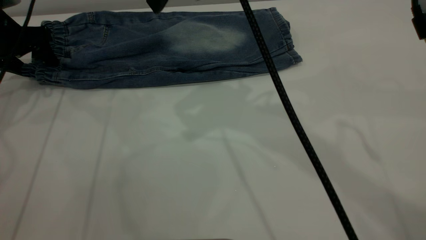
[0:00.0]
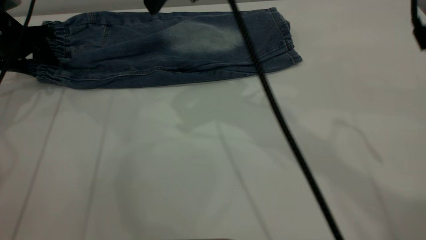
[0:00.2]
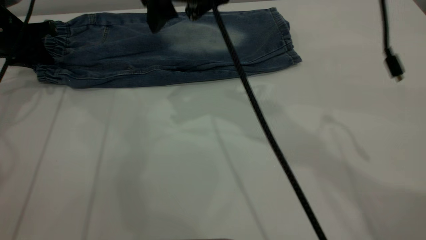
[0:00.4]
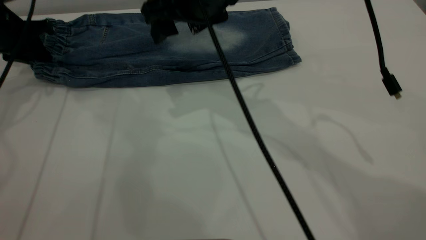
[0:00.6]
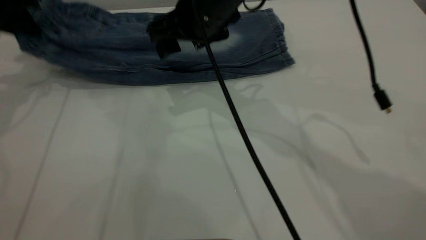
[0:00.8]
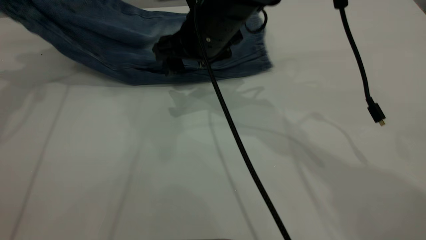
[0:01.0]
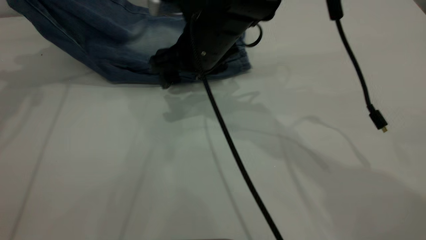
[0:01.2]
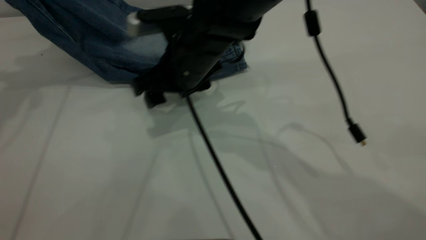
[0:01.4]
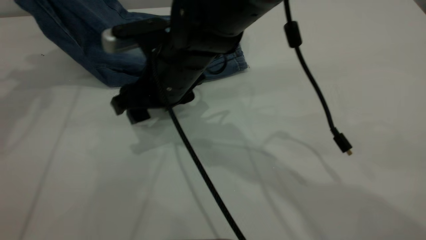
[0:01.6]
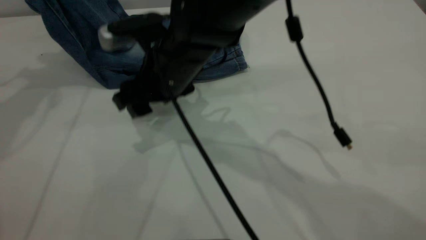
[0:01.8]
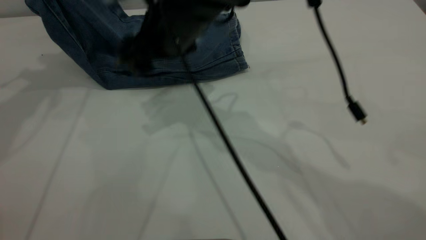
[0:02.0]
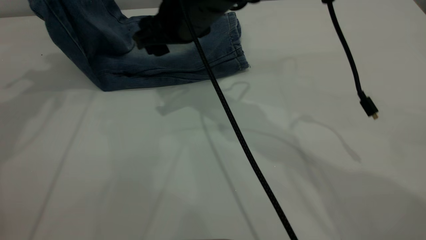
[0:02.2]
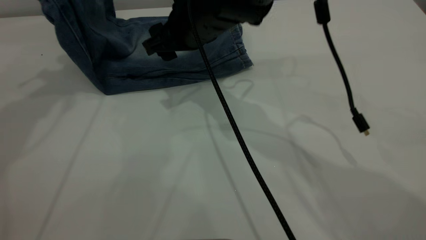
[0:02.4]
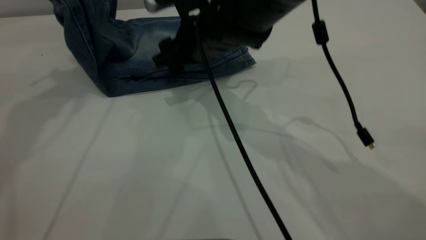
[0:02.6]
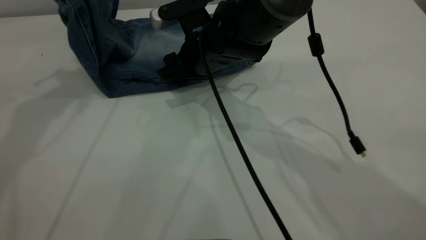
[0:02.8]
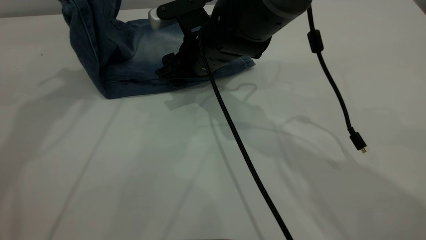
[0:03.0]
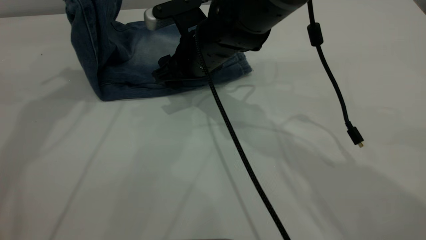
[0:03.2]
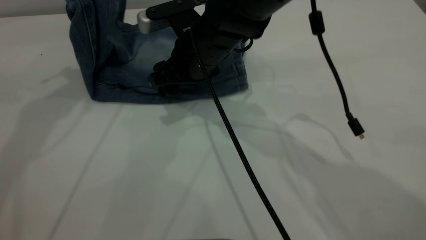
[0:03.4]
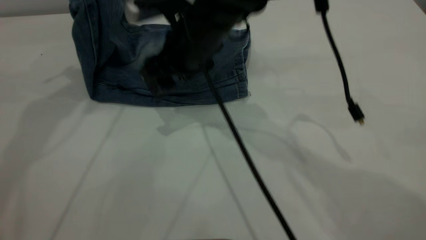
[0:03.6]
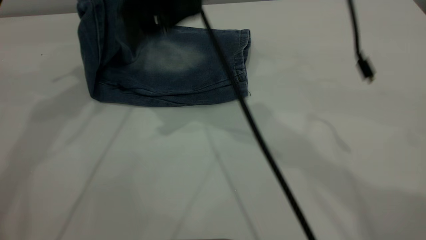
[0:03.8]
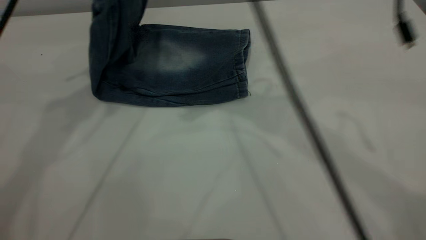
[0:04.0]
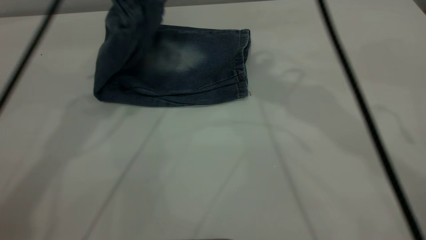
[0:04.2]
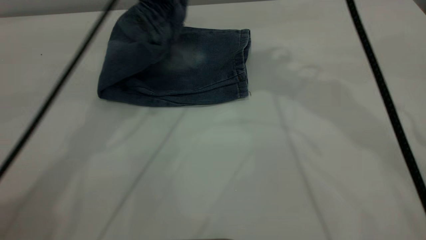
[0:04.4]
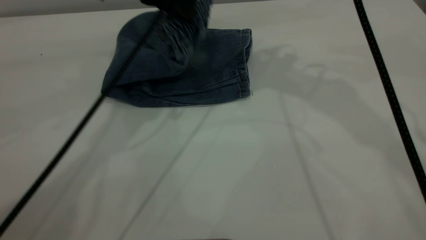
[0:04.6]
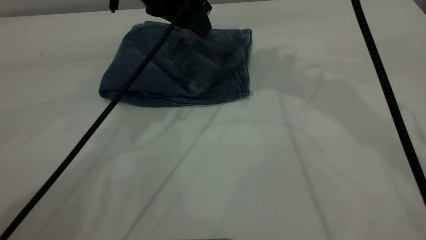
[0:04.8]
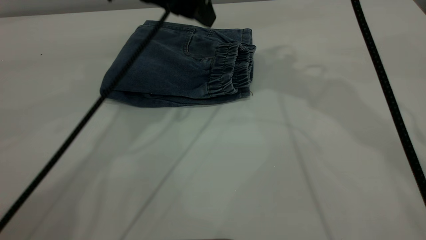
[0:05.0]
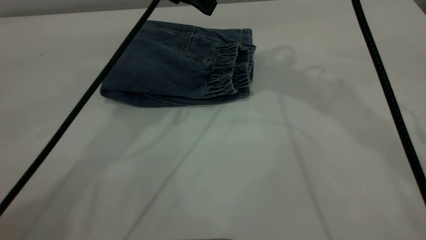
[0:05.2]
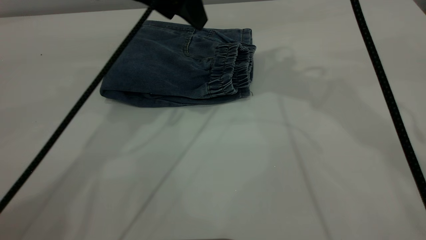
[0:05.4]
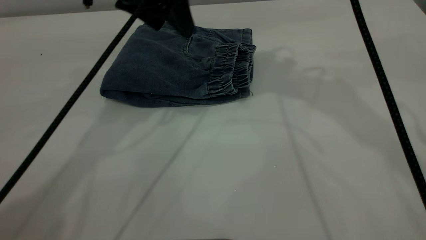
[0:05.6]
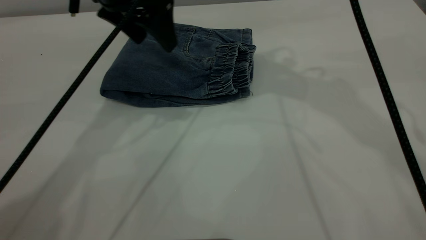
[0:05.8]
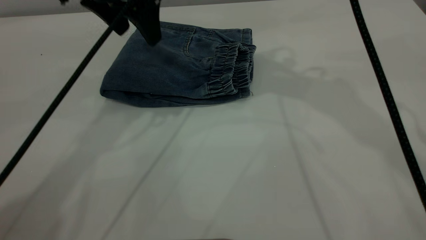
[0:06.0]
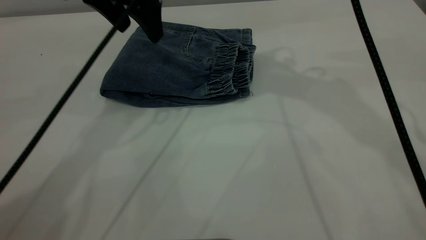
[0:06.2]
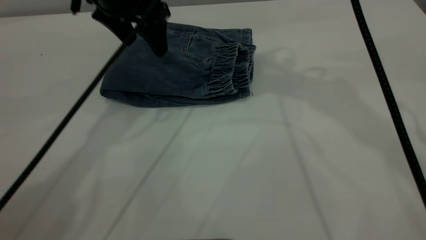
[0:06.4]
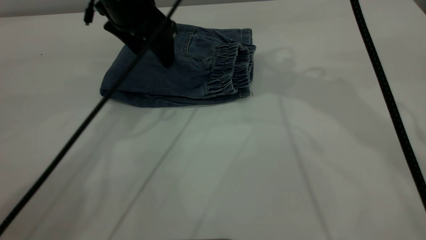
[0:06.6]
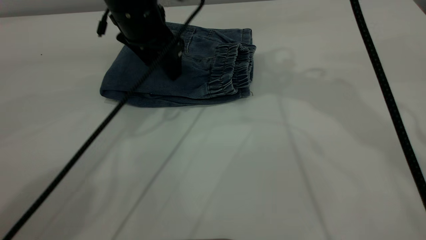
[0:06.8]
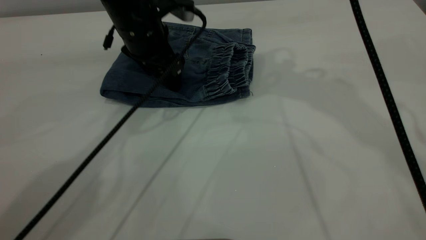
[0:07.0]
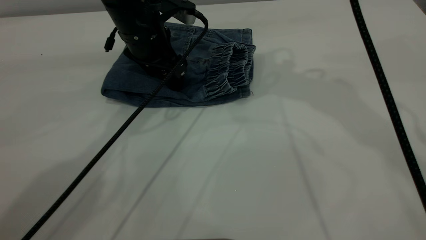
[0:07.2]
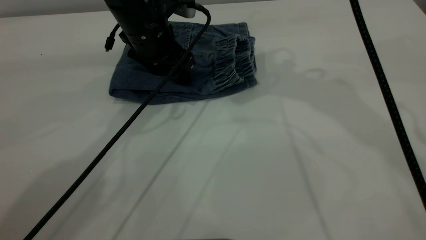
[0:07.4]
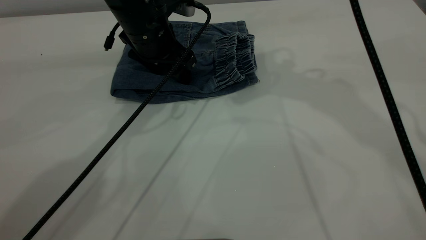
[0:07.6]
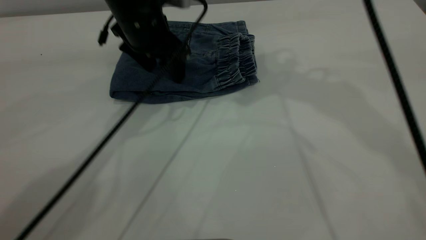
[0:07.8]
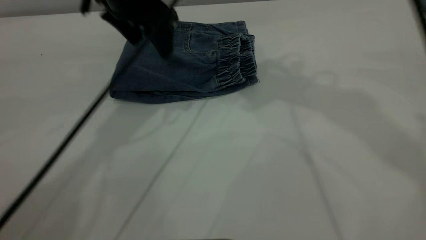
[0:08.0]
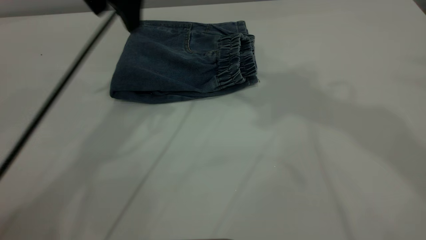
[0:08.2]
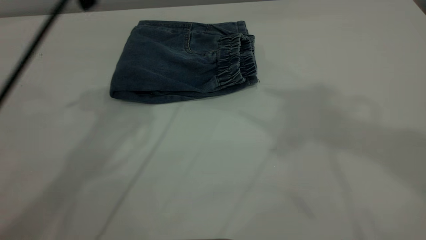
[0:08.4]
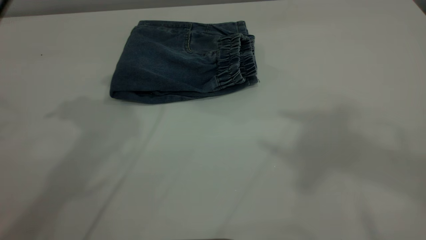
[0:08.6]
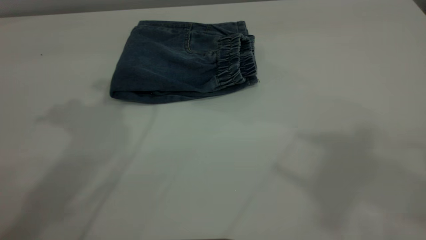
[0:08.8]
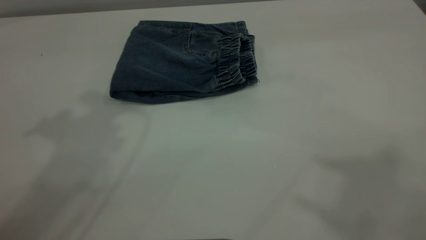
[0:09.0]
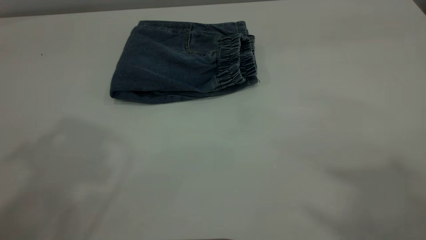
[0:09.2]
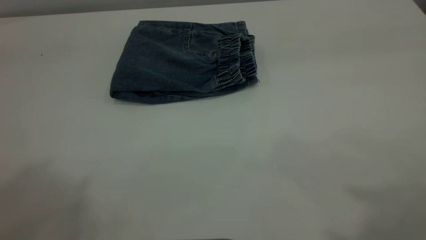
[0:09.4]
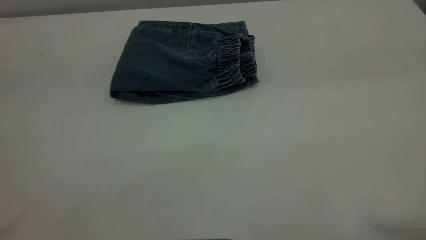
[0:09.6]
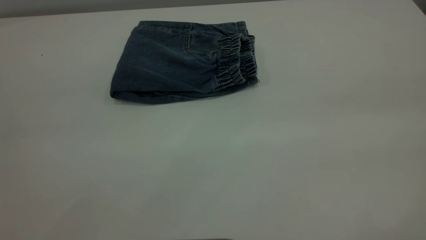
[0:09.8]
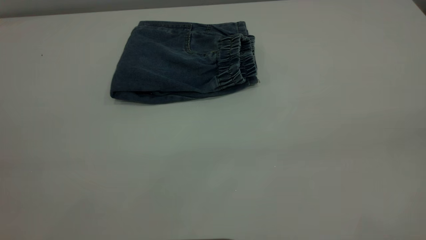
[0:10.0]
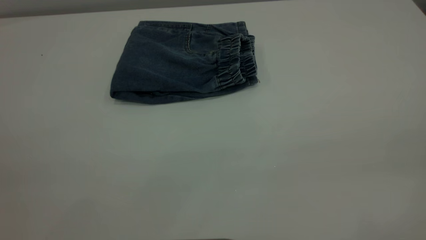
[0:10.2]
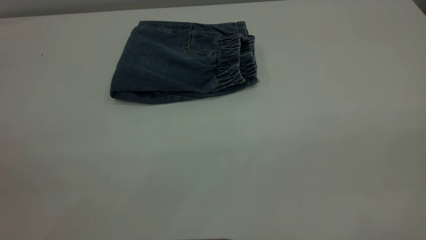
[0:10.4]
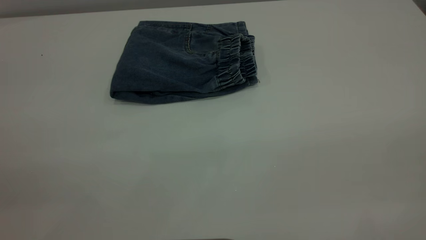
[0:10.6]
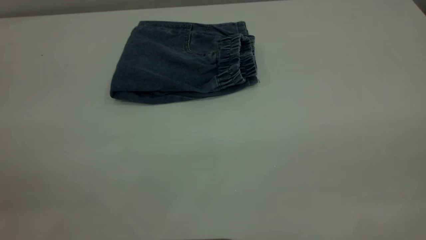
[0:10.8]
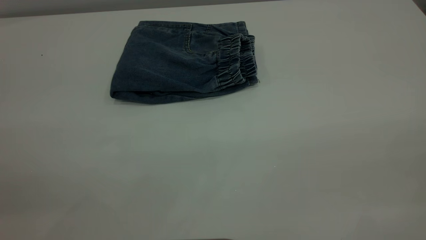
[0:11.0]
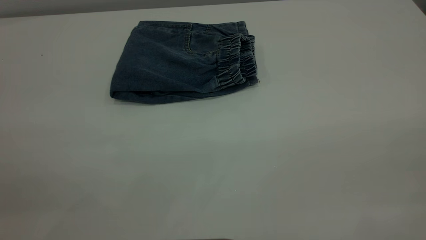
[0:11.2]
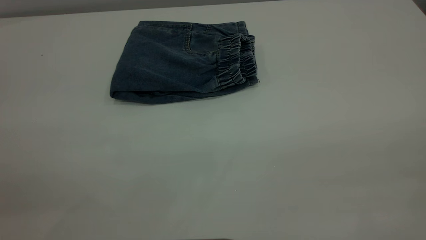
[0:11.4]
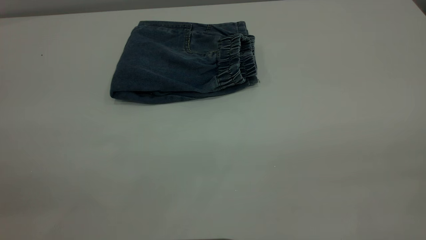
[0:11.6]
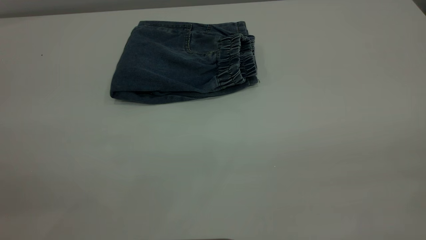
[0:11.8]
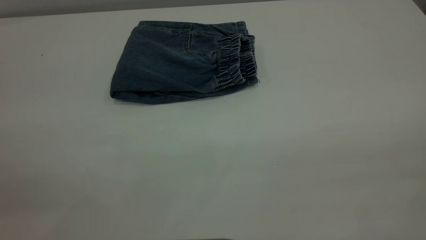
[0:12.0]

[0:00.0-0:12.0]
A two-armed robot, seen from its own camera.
Step, 0:00.0 to 0:05.2: Fold the pants from left to right.
0:00.0 to 0:01.6: The left gripper travels upward by roughly 20 cm, and closes, while the right gripper goes some 20 cm downward and to the left.
0:01.6 to 0:03.0: The right gripper heads forward, covering approximately 5 cm, and moves approximately 5 cm upward and comes back; the left gripper goes approximately 5 cm to the right.
0:03.0 to 0:04.4: The right gripper moves upward and to the right, some 25 cm. Meanwhile the left gripper is displaced to the right and downward by some 15 cm.
0:04.4 to 0:06.0: The left gripper opens.
0:06.0 to 0:07.6: The left gripper travels downward by roughly 10 cm.
0:07.6 to 0:09.0: Both grippers travel together upward and backward, roughly 35 cm.

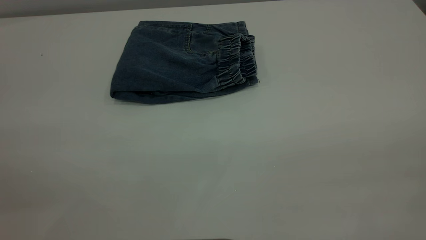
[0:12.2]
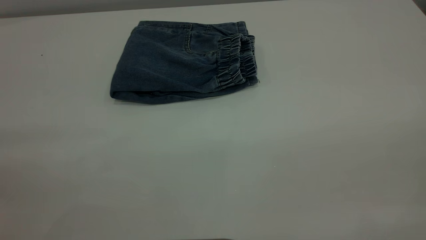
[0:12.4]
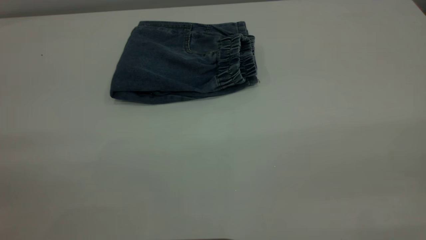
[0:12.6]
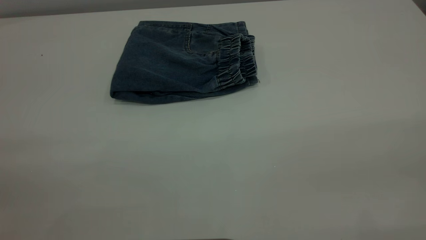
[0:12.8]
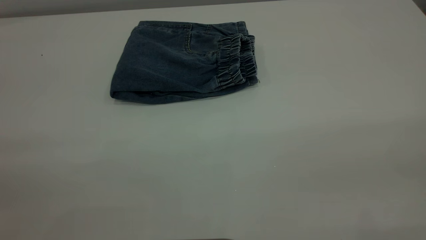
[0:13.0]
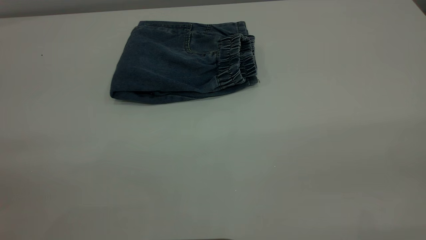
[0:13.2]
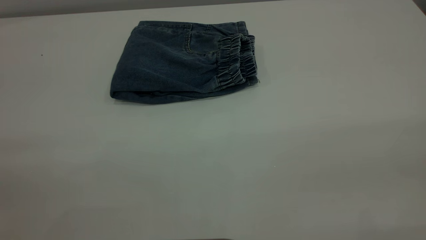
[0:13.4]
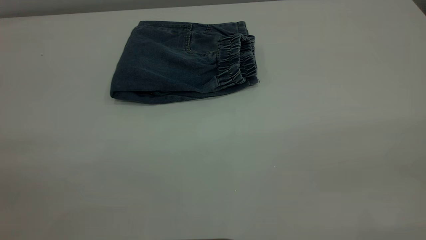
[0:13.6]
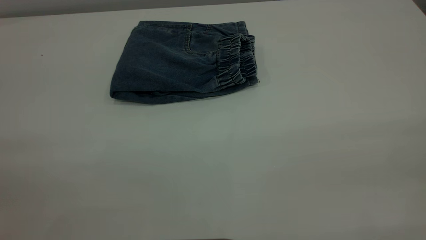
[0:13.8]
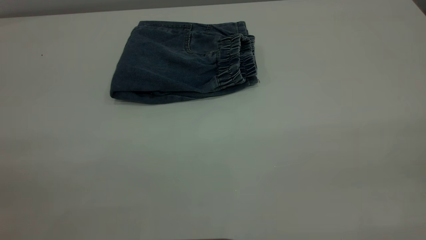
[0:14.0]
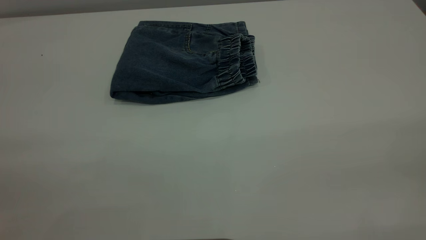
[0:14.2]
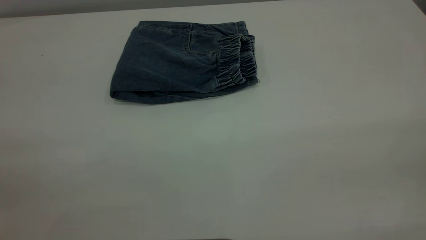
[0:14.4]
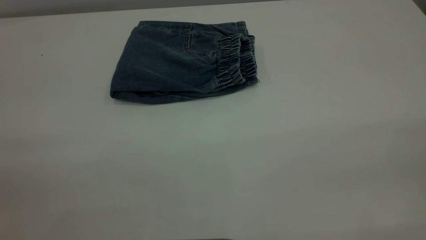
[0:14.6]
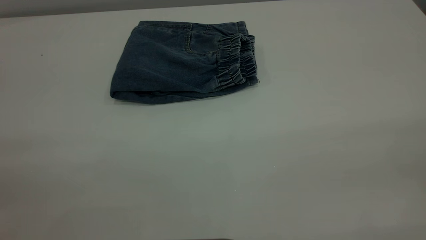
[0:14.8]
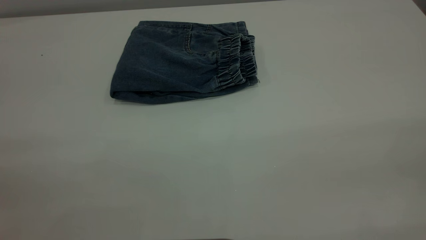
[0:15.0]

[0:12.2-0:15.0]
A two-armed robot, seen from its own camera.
0:13.6 to 0:15.0: Neither gripper changes place.

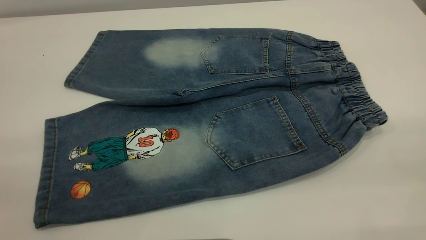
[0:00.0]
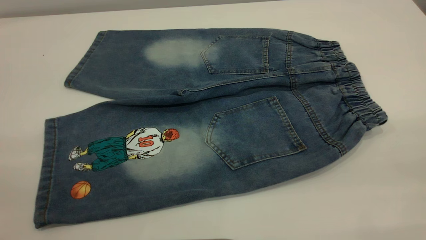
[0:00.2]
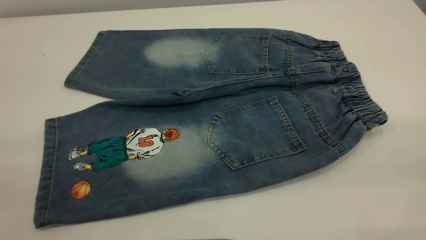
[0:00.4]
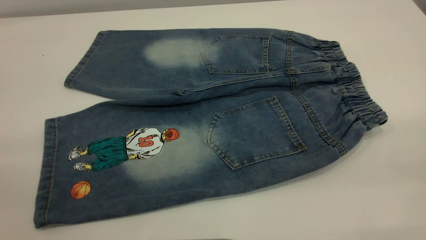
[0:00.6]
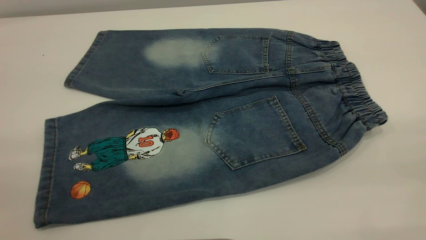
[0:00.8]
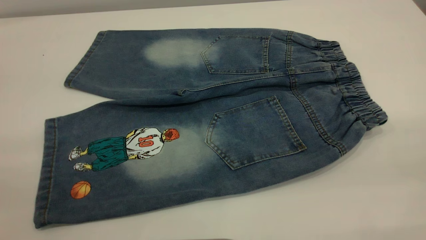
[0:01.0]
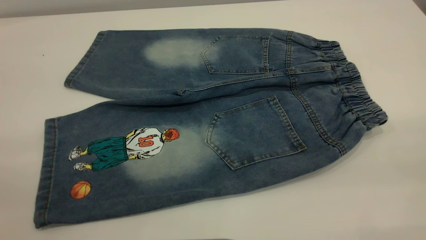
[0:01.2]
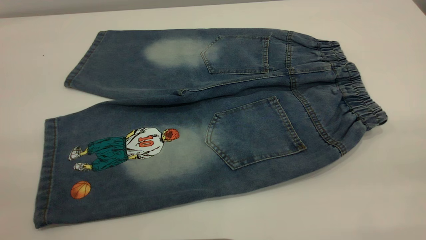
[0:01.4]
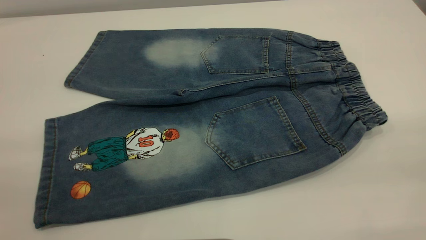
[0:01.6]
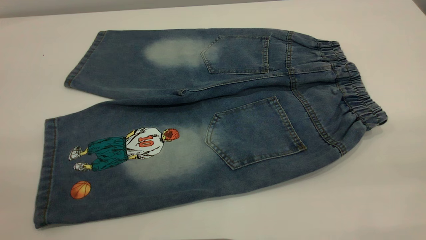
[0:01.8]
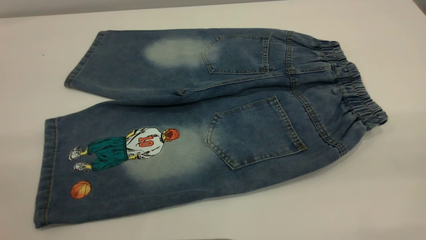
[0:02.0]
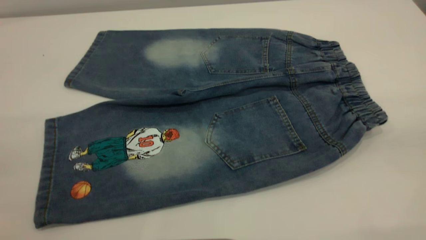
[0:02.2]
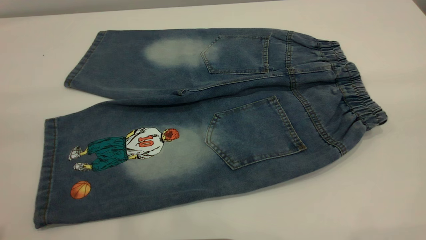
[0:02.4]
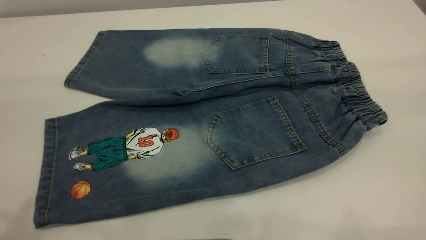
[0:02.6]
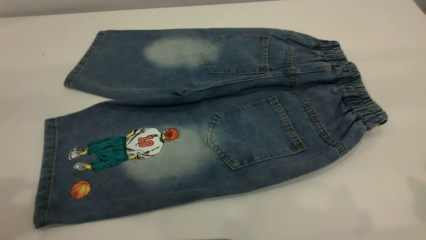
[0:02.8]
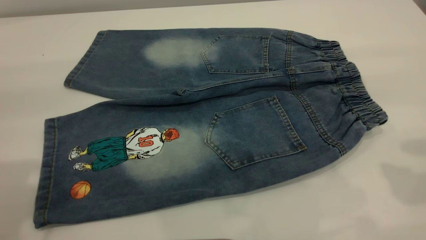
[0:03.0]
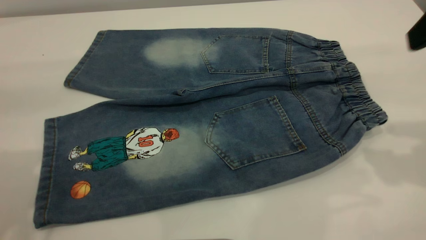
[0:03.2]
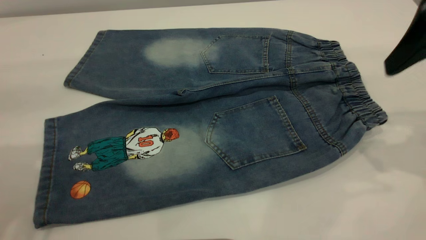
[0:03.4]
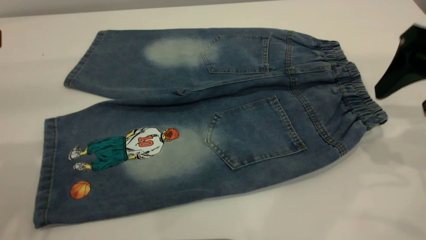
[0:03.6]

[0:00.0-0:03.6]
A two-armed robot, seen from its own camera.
0:00.0 to 0:01.8: The two grippers keep their place.
0:01.8 to 0:03.6: The right gripper heads forward and downward, covering approximately 30 cm, and opens its fingers.
